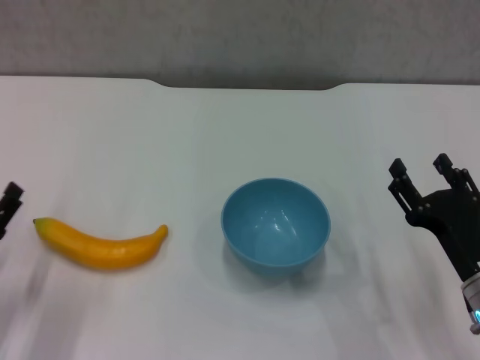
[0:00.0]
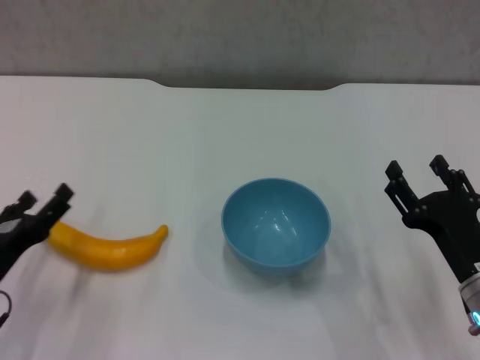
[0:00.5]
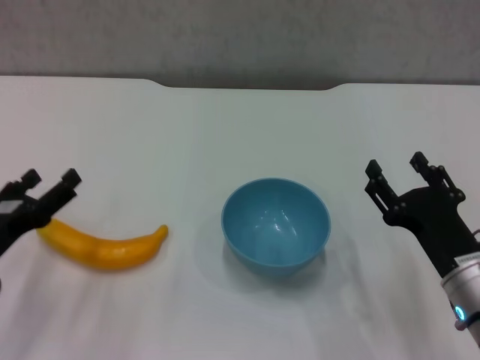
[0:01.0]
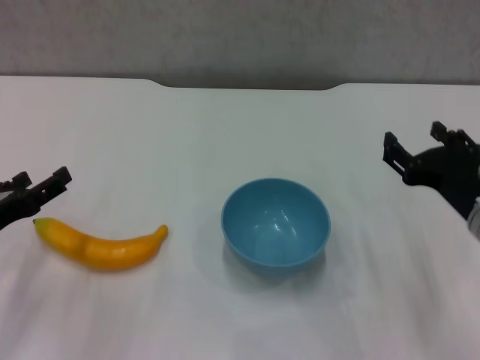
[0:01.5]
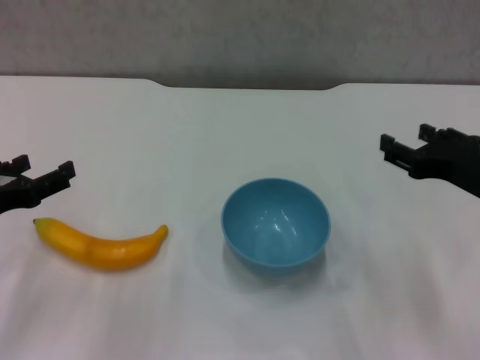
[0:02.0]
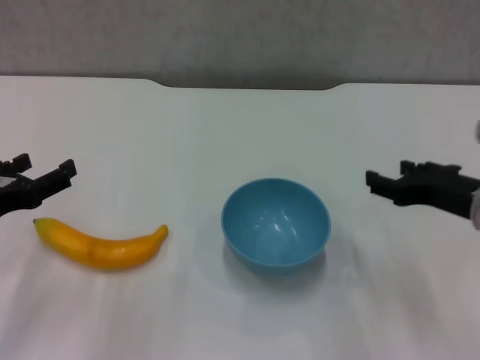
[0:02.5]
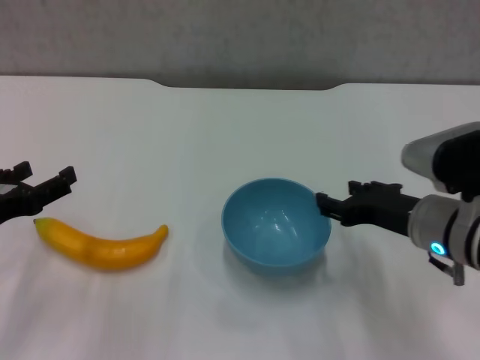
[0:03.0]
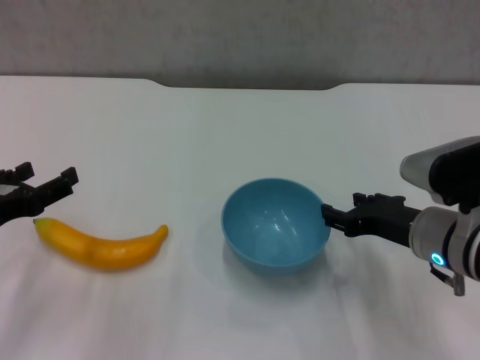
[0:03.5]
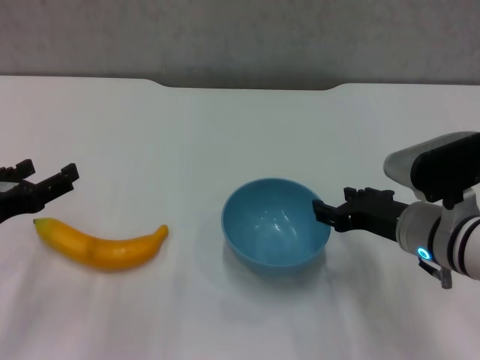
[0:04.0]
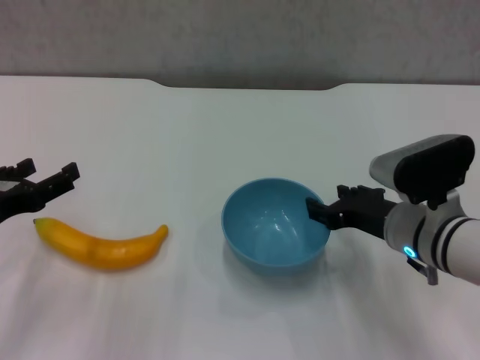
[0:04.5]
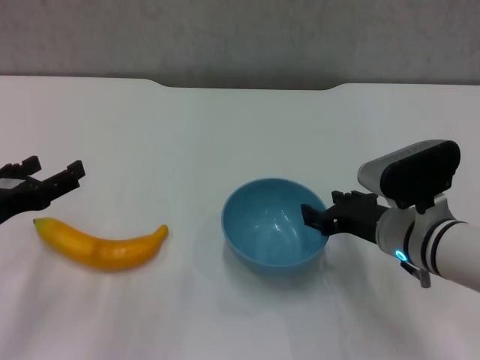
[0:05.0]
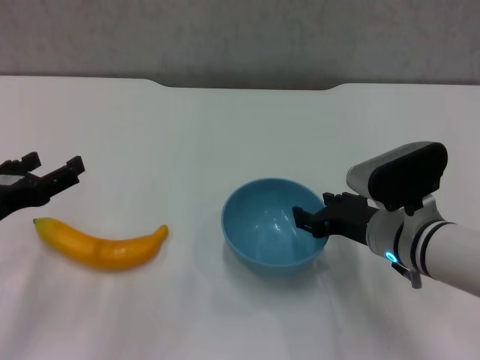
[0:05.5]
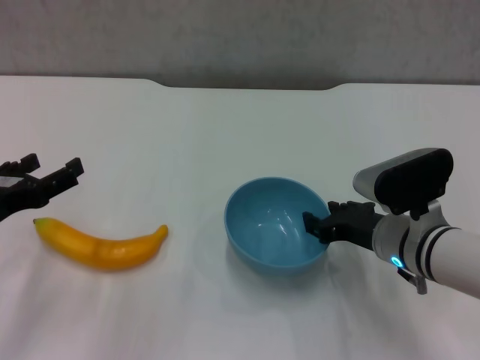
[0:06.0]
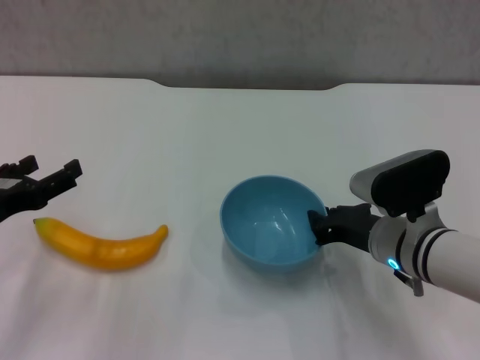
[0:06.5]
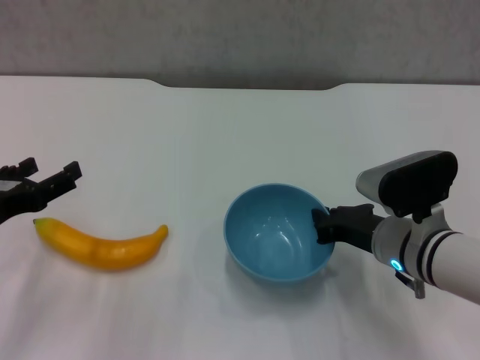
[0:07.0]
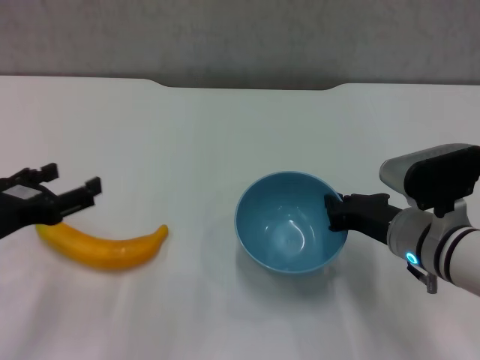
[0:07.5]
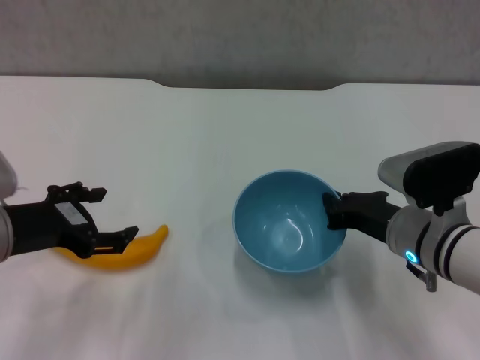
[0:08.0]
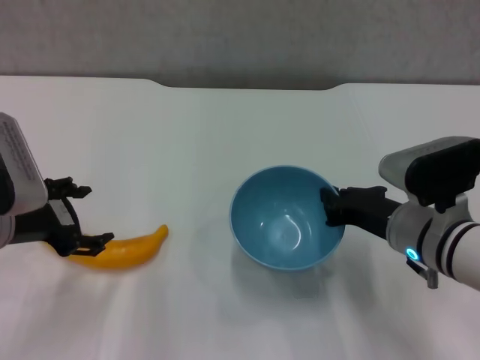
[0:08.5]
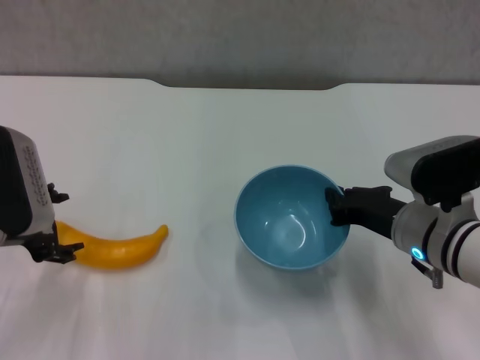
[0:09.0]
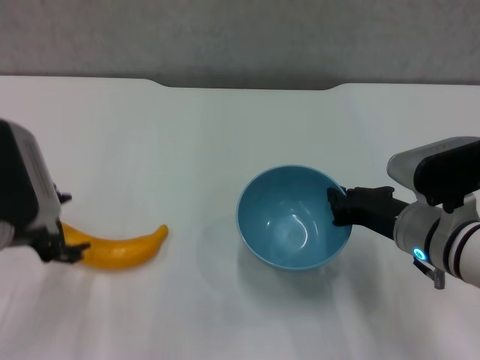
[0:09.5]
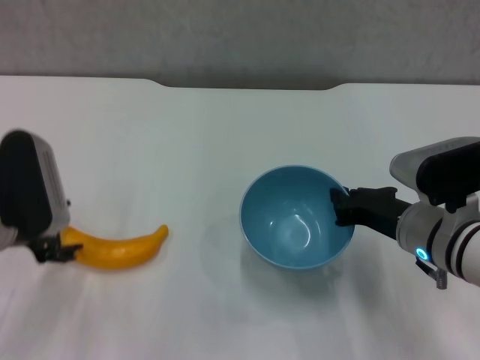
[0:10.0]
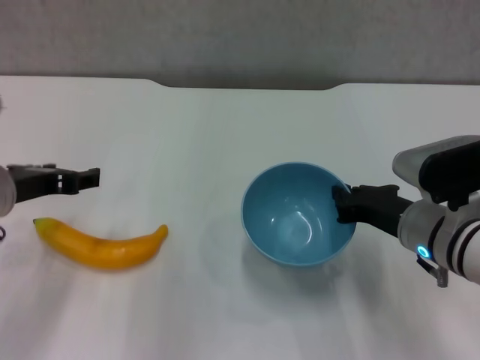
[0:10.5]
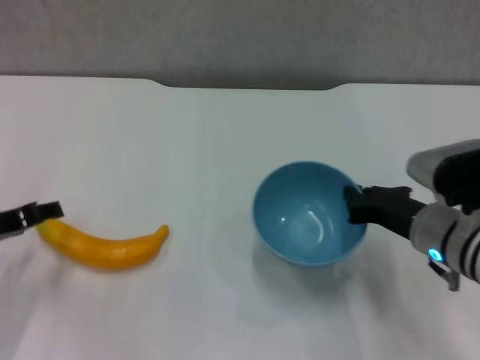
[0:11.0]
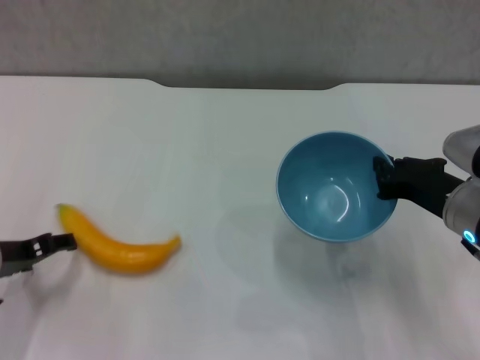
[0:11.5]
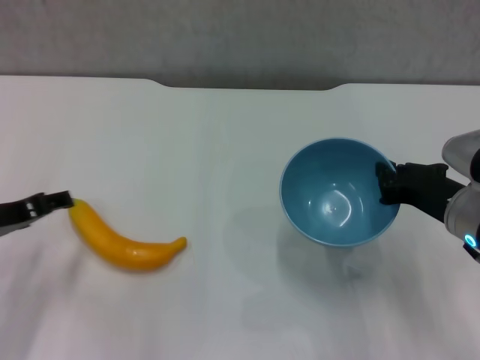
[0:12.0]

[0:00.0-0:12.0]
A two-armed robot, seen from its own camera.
Step, 0:00.0 to 0:06.5: Grasp the blue bowl with right gripper.
Step, 0:07.0 to 0:07.5: Lift the blue bowl with right gripper.
0:00.0 to 0:02.0: The grippers both shift upward by about 10 cm.
0:02.0 to 0:04.0: The right gripper shifts approximately 10 cm downward and to the left.
0:04.0 to 0:06.0: The grippers stay close to where they were, moving slightly.
0:06.0 to 0:08.0: The right gripper closes.

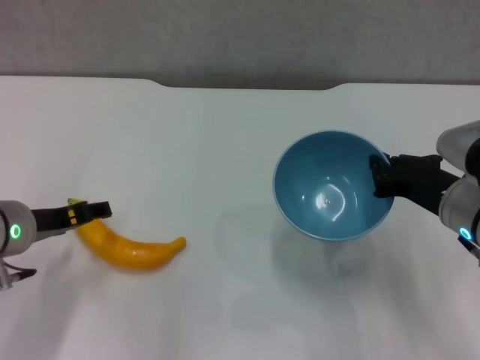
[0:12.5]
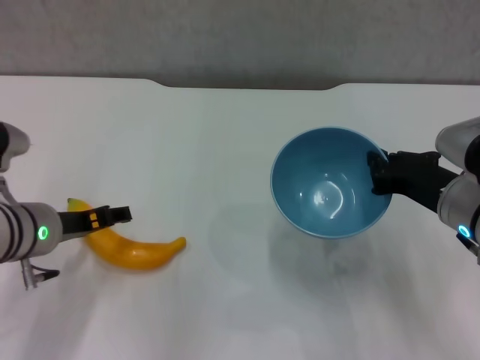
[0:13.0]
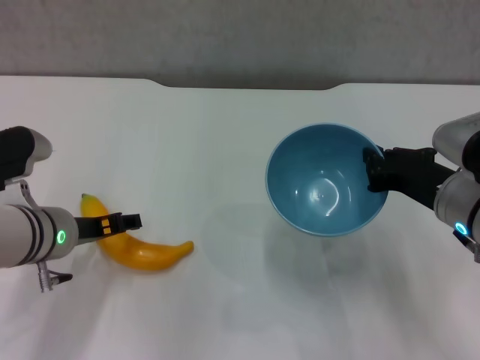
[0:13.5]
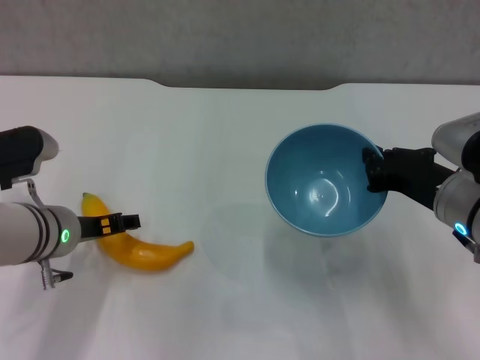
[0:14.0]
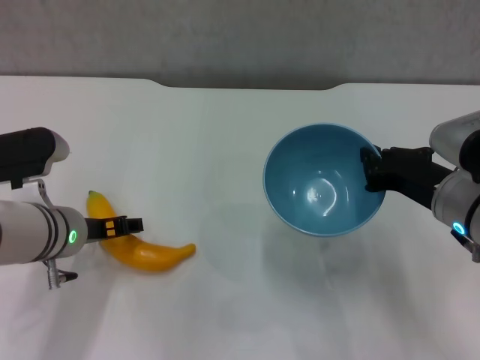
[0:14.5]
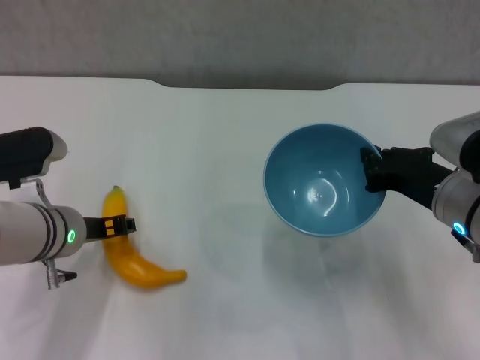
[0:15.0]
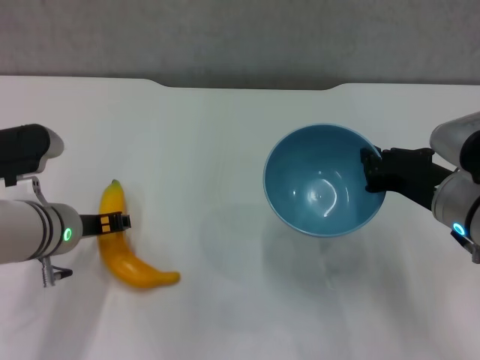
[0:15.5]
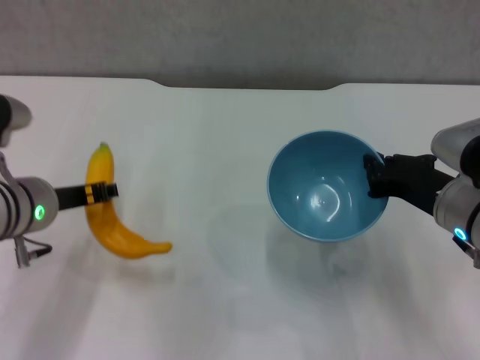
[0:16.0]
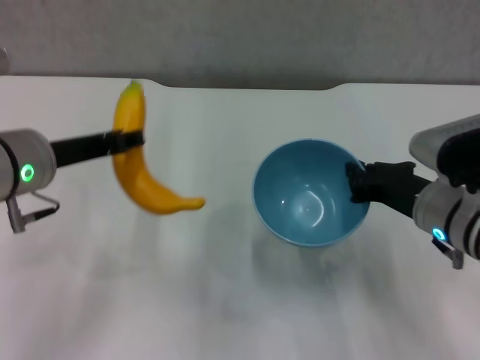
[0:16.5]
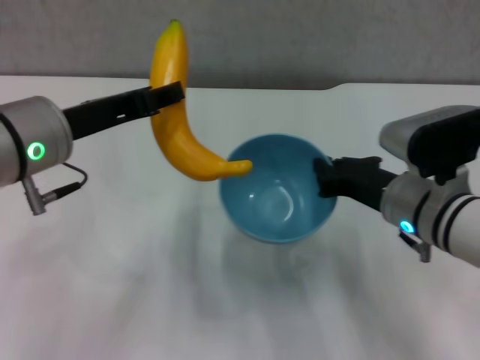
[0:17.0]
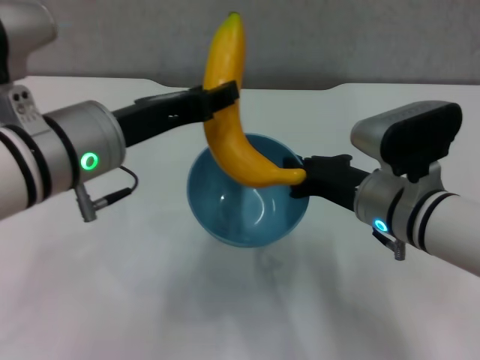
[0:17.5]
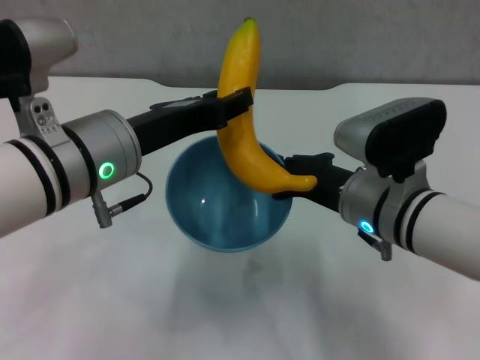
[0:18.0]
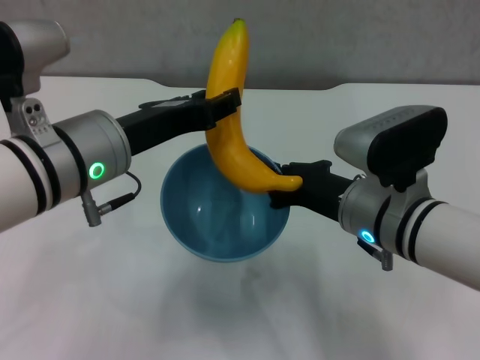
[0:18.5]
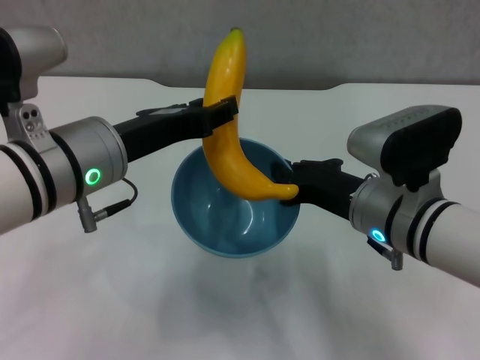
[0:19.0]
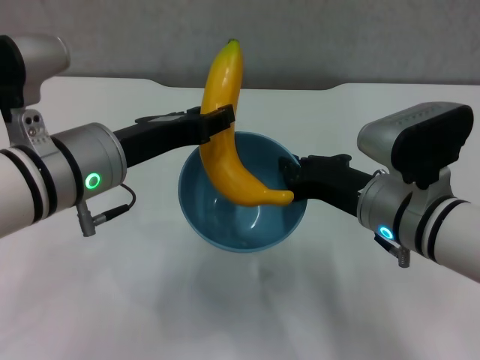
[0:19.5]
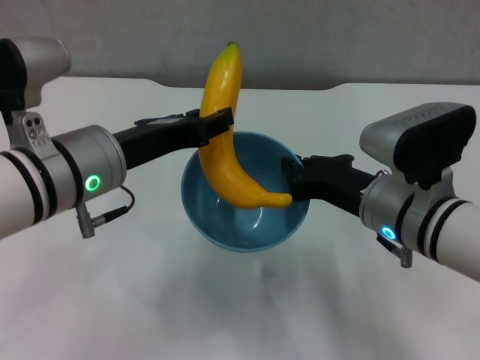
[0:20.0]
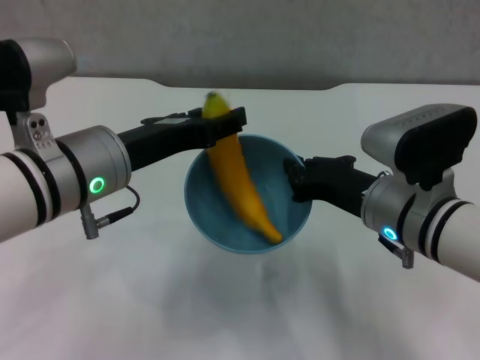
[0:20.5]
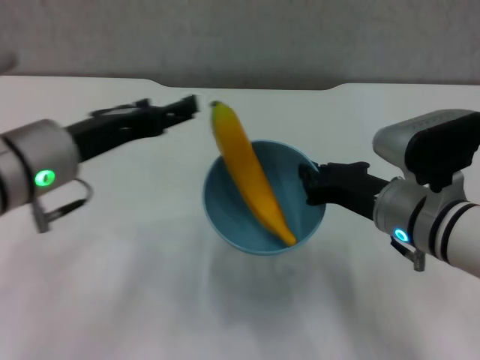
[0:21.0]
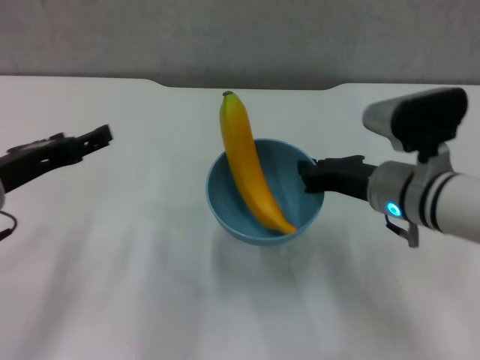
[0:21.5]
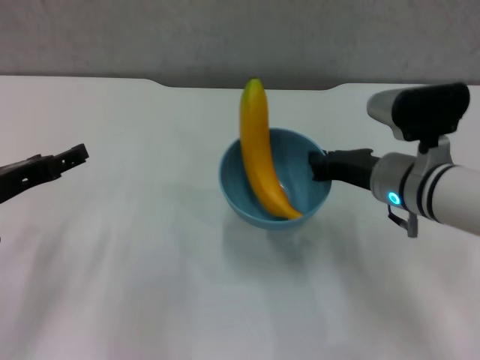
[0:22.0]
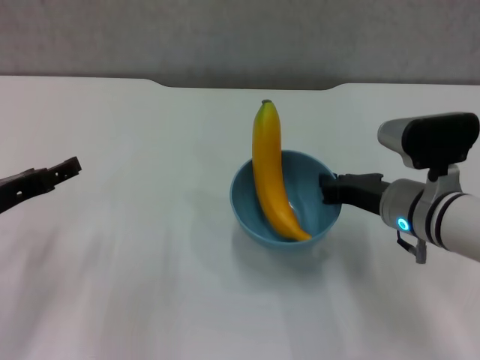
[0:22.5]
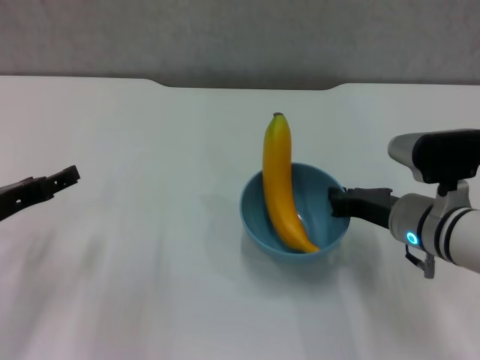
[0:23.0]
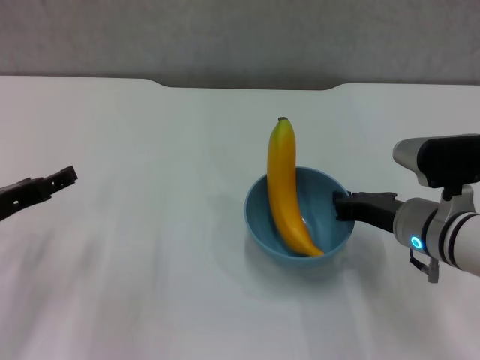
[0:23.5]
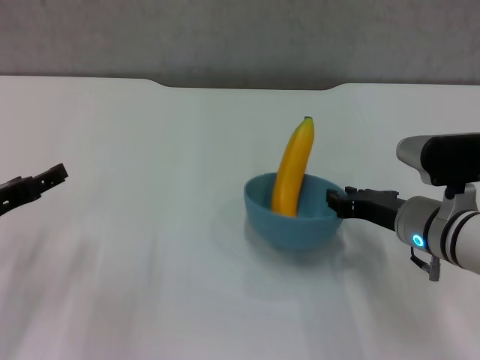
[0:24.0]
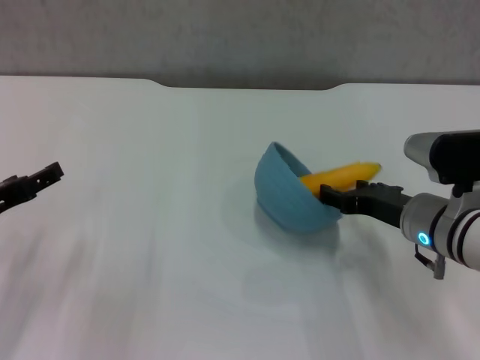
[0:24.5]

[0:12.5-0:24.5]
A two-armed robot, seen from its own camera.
Step, 0:12.5 to 0:15.0: Grasp the banana with left gripper.
Step, 0:15.5 to 0:20.5: Place the banana in the blue bowl with left gripper.
0:12.5 to 0:14.5: The left gripper changes place by approximately 5 cm.
0:14.5 to 0:16.5: The left gripper goes roughly 10 cm upward, and closes.
0:16.5 to 0:18.5: The right gripper goes some 5 cm to the left. Meanwhile the left gripper is displaced to the right by approximately 5 cm.
0:20.5 to 0:22.5: The right gripper moves approximately 5 cm; the left gripper shifts some 15 cm to the left and downward, and opens.
0:22.5 to 0:24.5: The right gripper opens up.

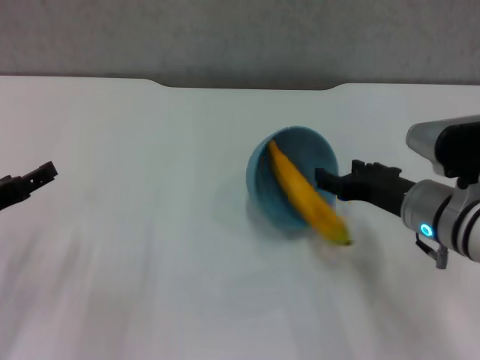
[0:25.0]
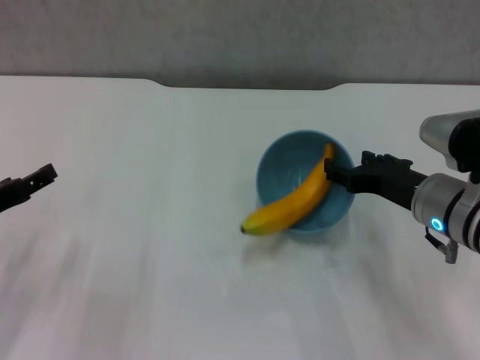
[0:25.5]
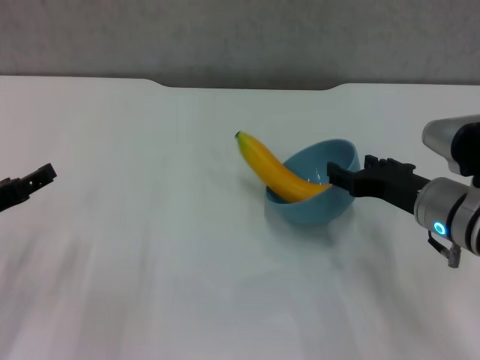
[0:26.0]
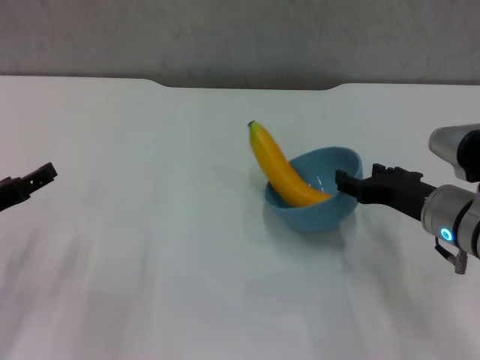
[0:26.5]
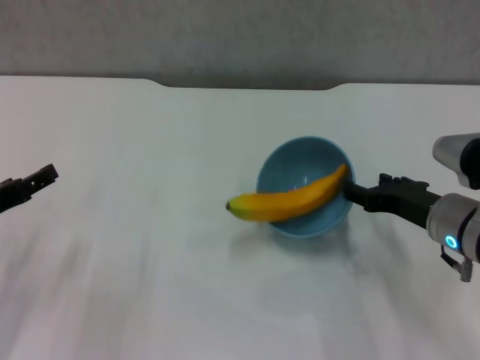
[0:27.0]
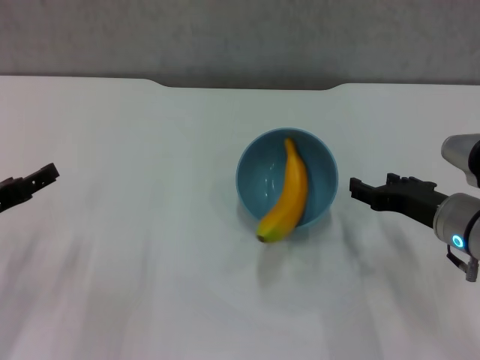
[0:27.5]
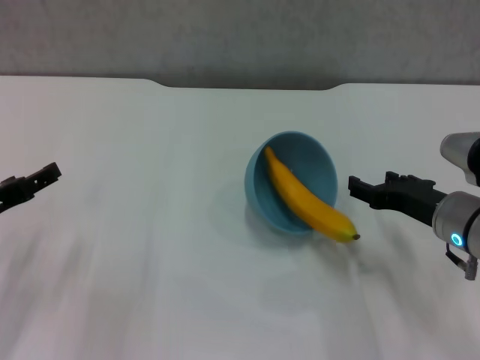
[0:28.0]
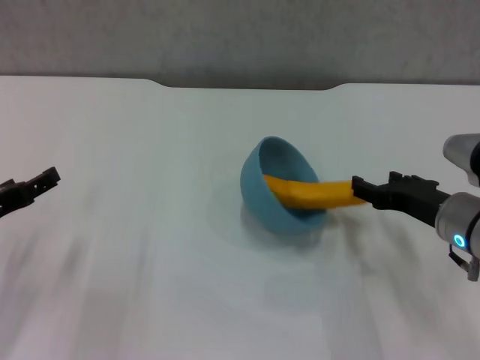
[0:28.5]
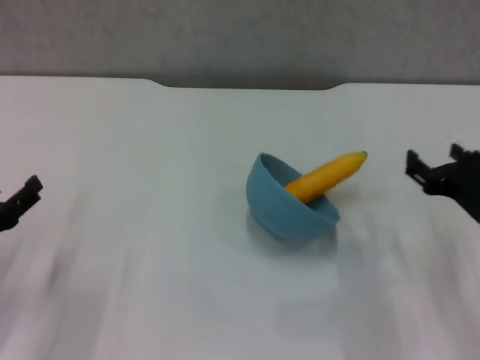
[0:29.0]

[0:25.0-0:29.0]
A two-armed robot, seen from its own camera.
0:25.0 to 0:27.0: The grippers make only small movements.
0:27.0 to 0:29.0: The left gripper shifts by roughly 5 cm.
